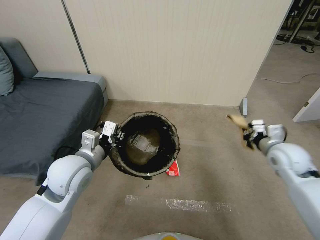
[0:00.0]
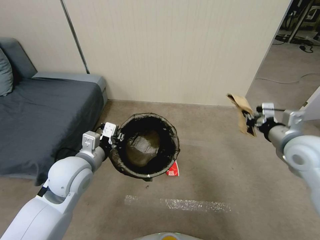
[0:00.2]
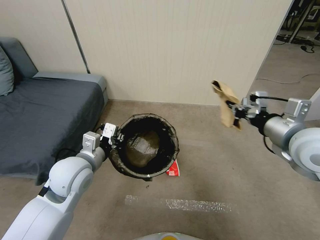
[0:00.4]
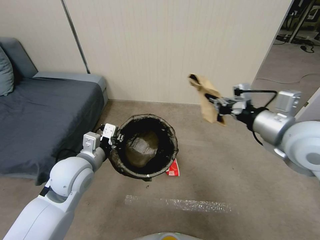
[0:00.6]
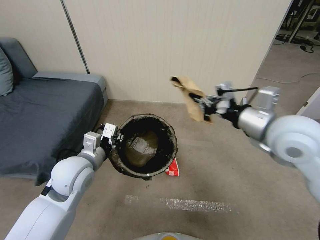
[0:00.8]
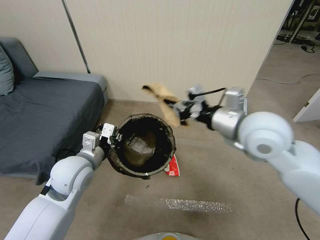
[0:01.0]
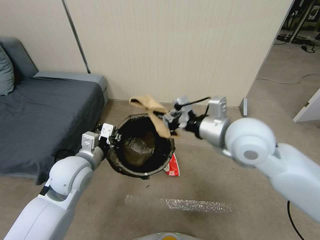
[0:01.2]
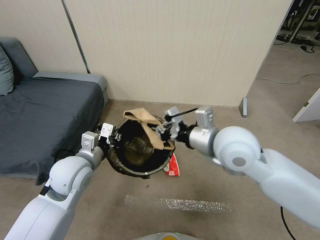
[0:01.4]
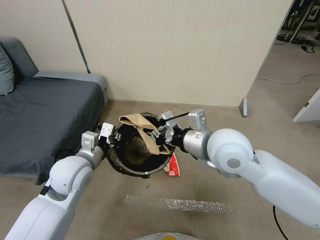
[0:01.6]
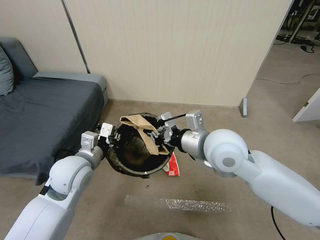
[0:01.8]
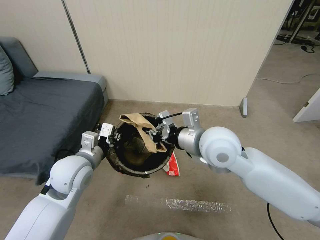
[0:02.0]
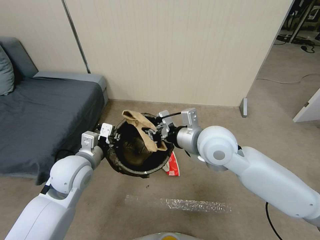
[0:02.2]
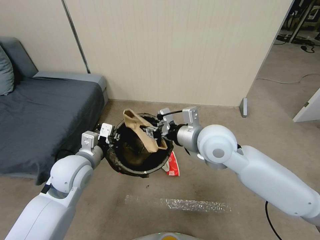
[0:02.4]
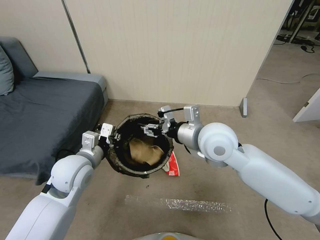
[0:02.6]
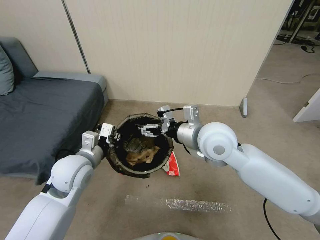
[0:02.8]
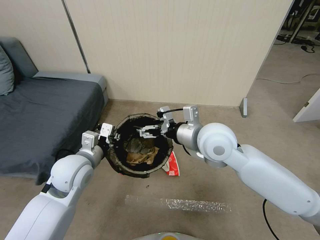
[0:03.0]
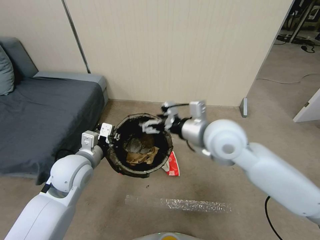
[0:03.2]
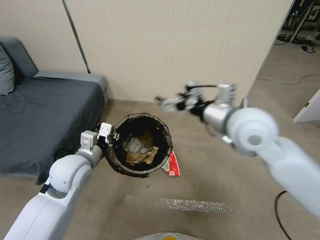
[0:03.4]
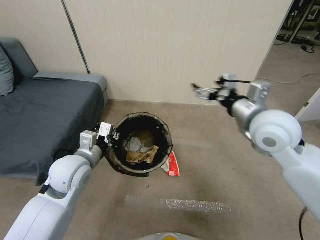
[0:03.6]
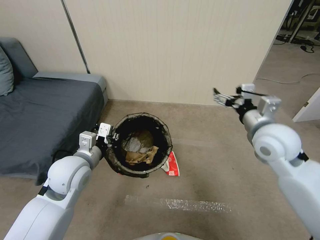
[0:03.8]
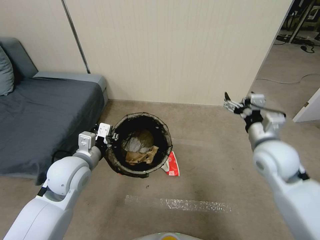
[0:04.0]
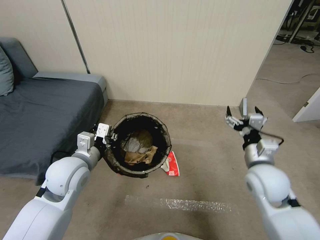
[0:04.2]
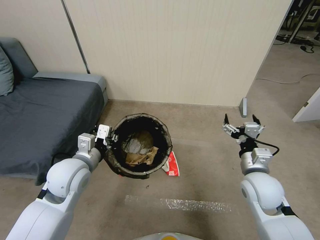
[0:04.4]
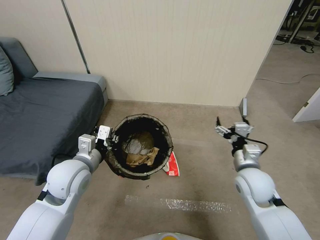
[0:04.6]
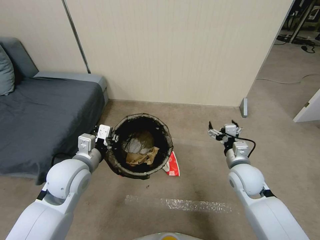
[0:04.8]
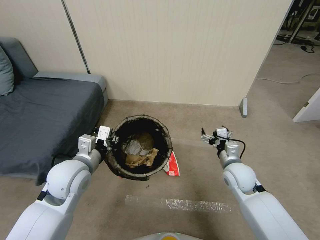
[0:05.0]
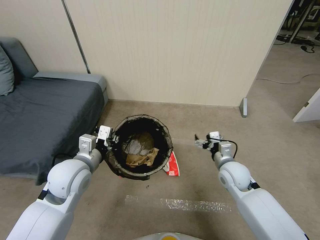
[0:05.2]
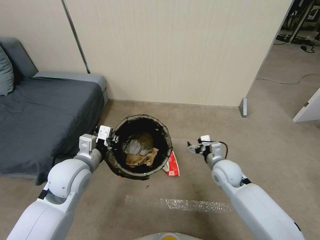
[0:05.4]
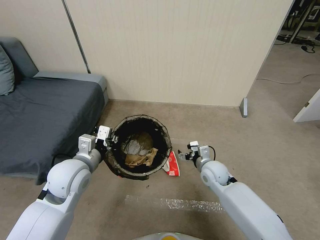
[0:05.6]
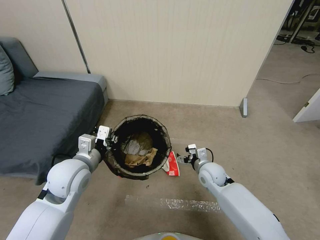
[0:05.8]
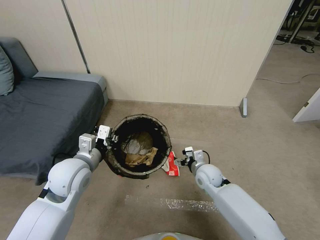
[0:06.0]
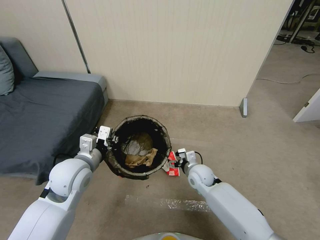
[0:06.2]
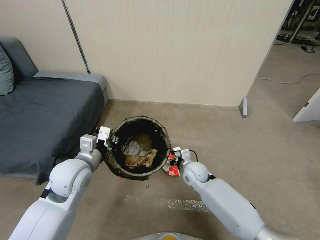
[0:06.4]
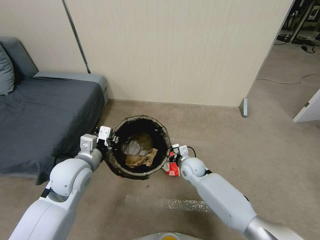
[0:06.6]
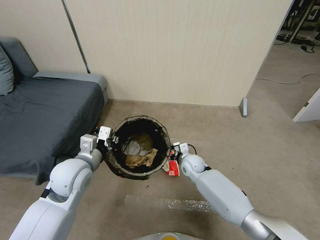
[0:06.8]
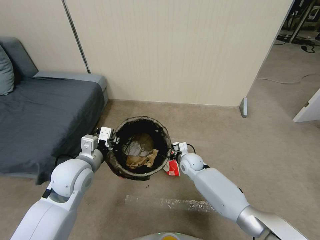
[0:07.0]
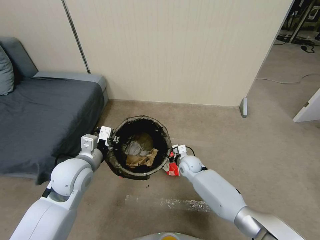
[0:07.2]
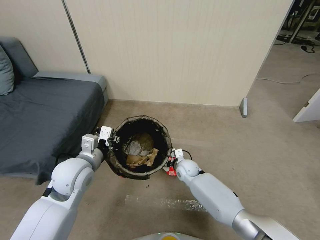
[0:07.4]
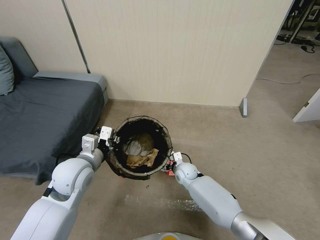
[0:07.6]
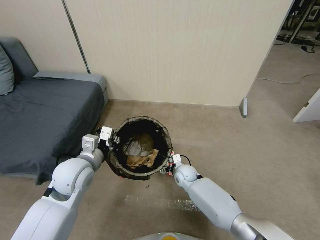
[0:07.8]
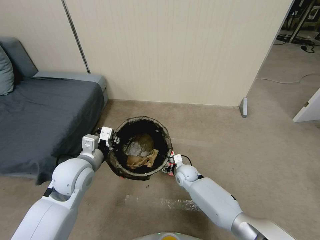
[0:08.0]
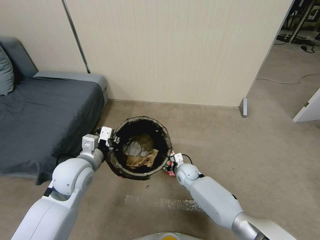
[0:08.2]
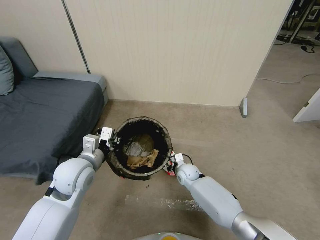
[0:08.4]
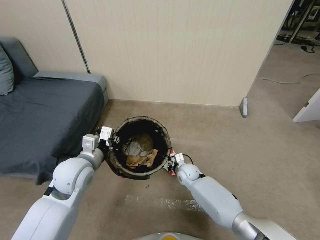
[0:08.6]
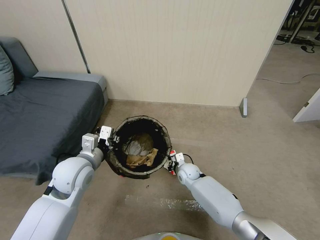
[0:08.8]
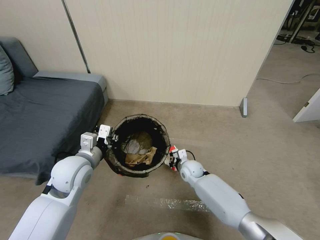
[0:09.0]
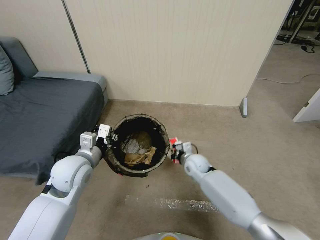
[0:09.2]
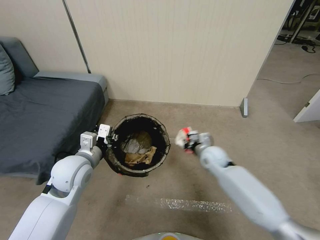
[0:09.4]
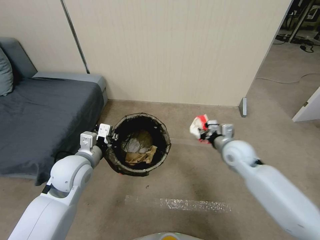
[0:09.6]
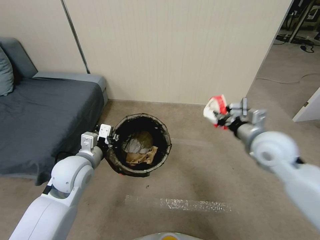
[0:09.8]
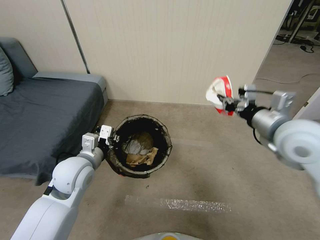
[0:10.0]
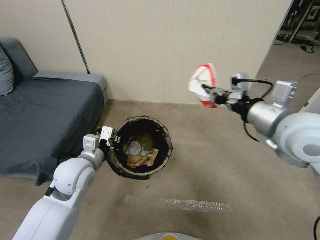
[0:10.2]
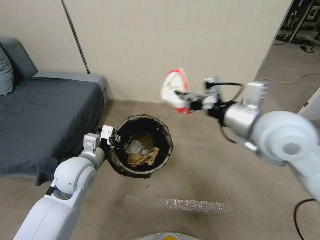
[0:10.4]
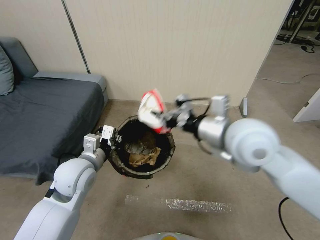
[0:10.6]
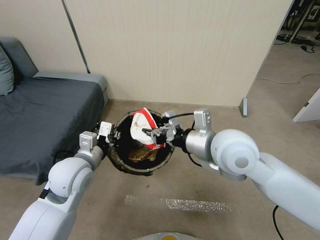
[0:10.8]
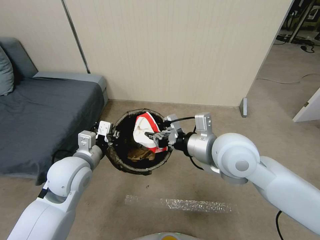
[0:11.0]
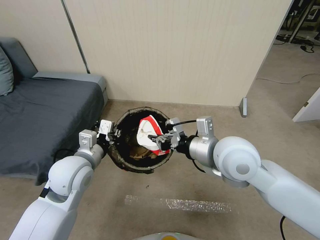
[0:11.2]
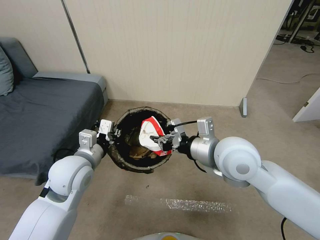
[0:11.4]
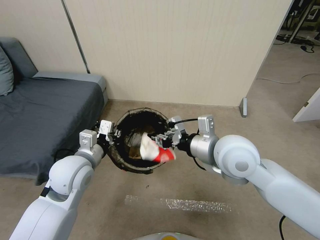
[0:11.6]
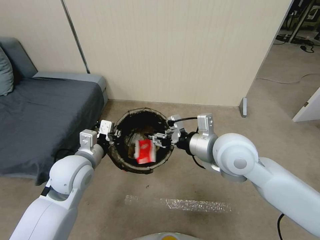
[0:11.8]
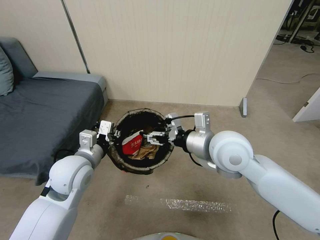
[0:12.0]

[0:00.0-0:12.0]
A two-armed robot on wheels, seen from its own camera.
Task of the whole recording: Pick up the trash bin, then pick up the garbage from the floor and place it into the trash bin.
0:00.0 to 0:01.6: The right gripper moves to the left and upward, about 25 cm.
0:01.6 to 0:03.0: The right gripper opens its fingers.
0:03.0 to 0:04.4: The right gripper is displaced to the right, downward and backward by roughly 20 cm.
0:04.4 to 0:06.0: The right gripper is displaced downward, to the left and forward by roughly 20 cm.
0:06.0 to 0:07.6: The right gripper moves downward and to the left, some 10 cm.
0:07.6 to 0:09.0: The right gripper closes its fingers.
0:09.0 to 0:10.4: The right gripper moves upward, about 40 cm.
0:10.4 to 0:12.0: The right gripper goes about 10 cm downward and to the left, and opens its fingers.

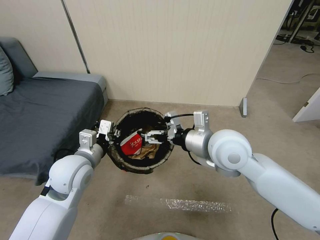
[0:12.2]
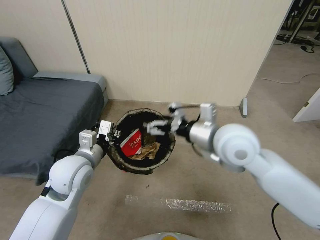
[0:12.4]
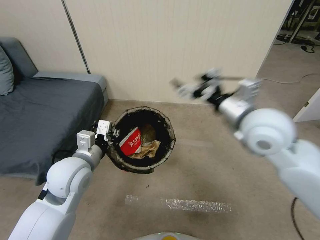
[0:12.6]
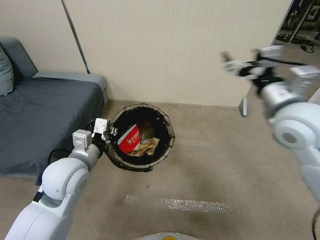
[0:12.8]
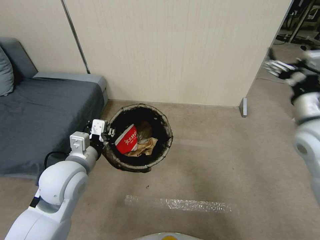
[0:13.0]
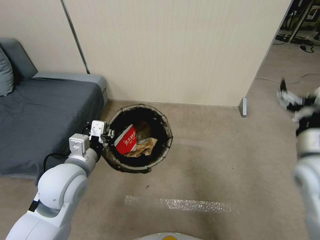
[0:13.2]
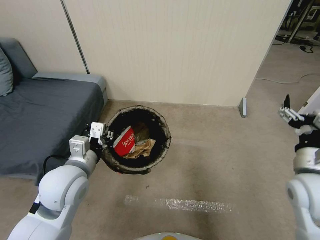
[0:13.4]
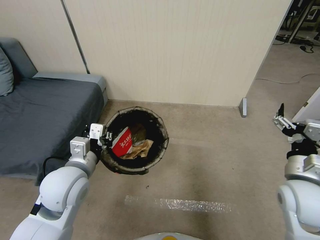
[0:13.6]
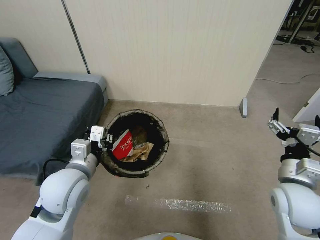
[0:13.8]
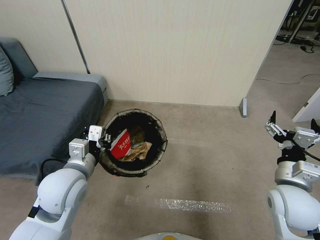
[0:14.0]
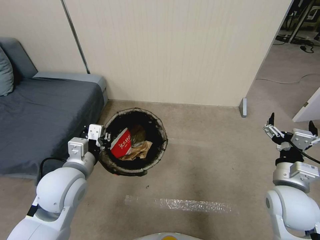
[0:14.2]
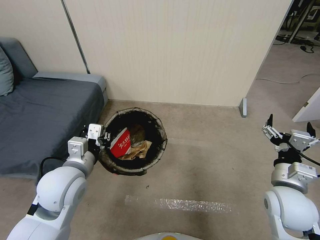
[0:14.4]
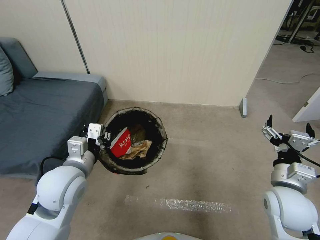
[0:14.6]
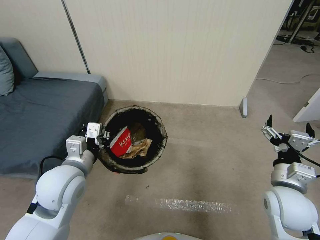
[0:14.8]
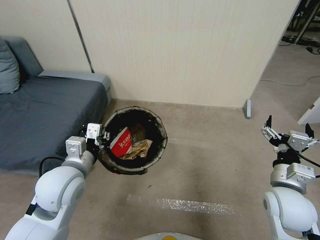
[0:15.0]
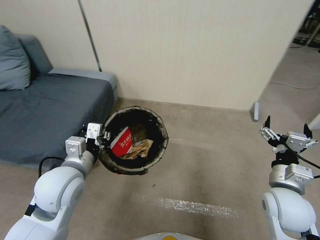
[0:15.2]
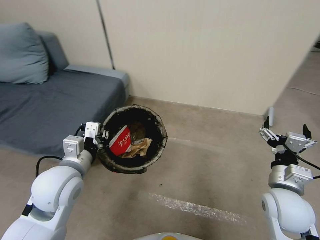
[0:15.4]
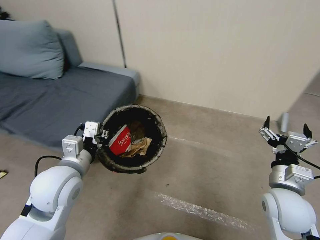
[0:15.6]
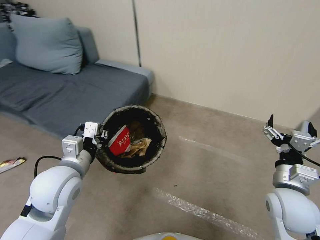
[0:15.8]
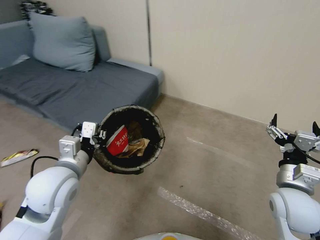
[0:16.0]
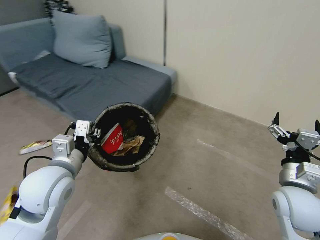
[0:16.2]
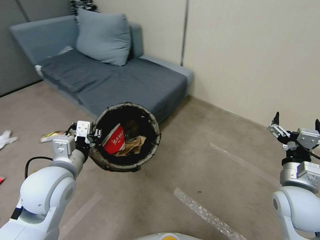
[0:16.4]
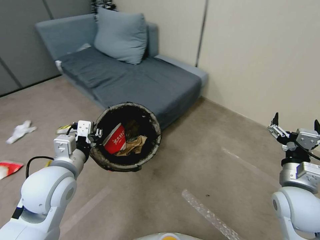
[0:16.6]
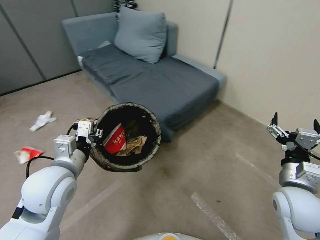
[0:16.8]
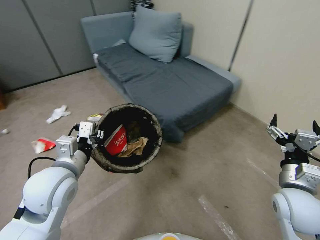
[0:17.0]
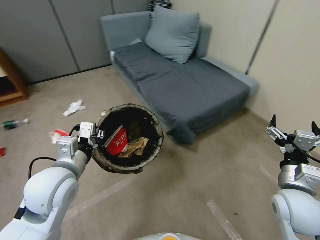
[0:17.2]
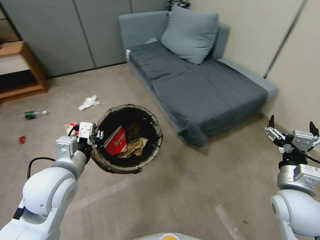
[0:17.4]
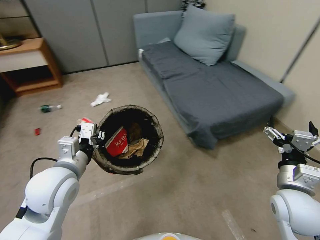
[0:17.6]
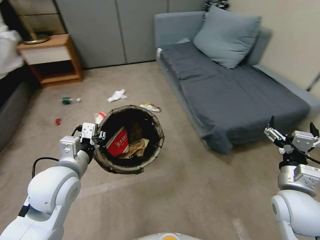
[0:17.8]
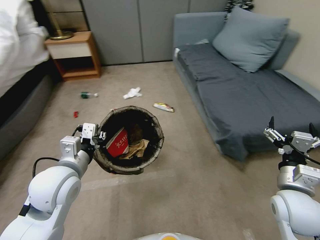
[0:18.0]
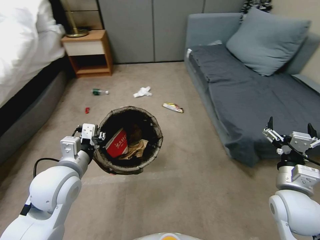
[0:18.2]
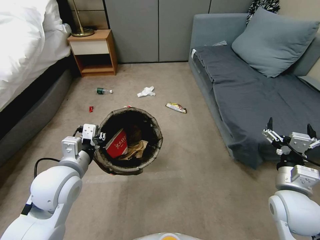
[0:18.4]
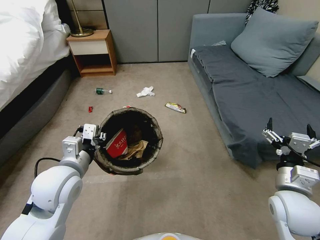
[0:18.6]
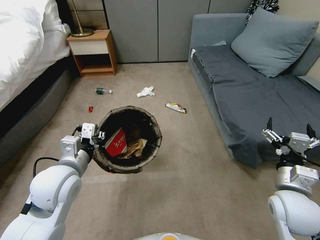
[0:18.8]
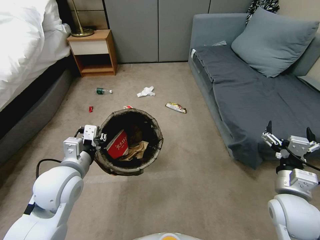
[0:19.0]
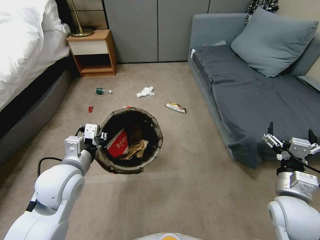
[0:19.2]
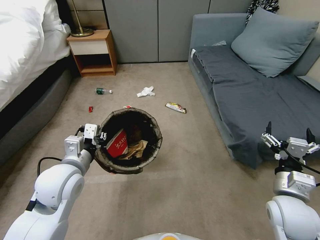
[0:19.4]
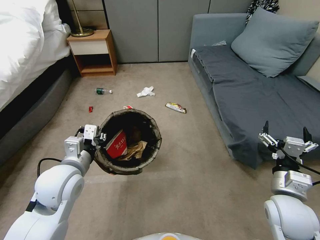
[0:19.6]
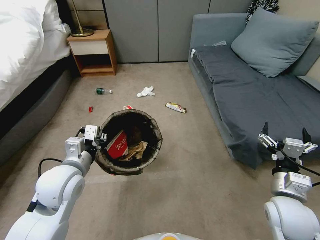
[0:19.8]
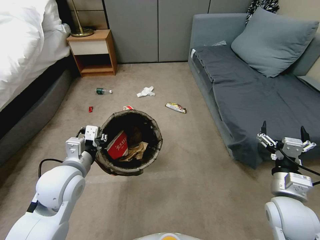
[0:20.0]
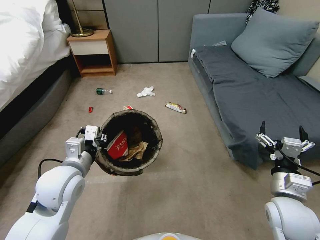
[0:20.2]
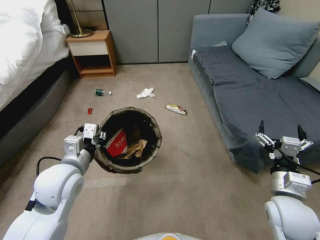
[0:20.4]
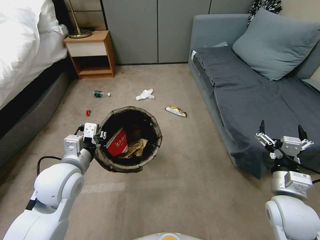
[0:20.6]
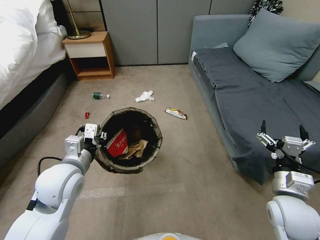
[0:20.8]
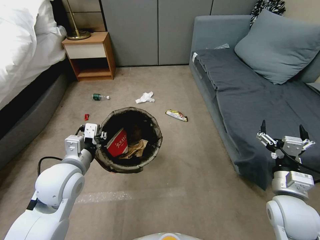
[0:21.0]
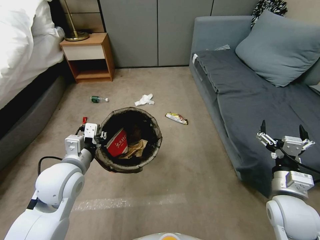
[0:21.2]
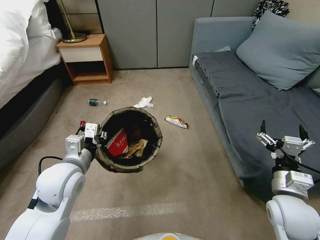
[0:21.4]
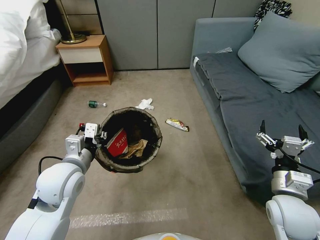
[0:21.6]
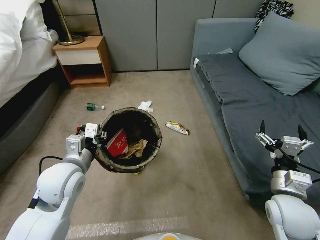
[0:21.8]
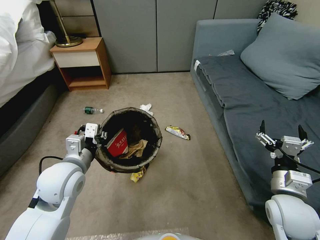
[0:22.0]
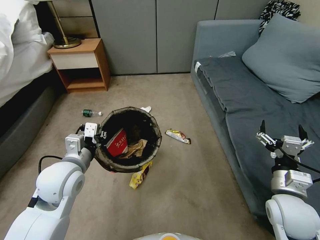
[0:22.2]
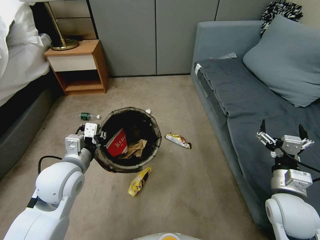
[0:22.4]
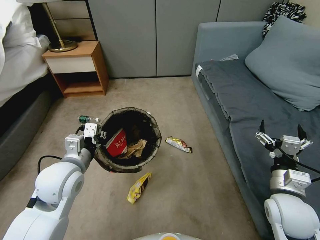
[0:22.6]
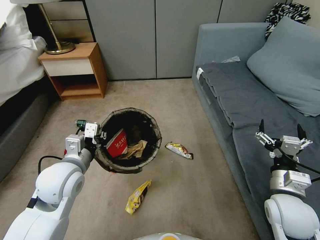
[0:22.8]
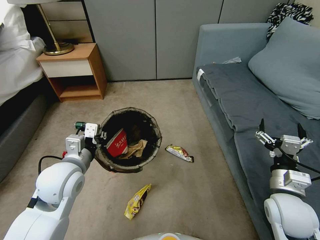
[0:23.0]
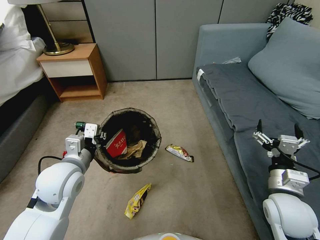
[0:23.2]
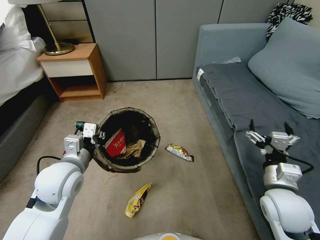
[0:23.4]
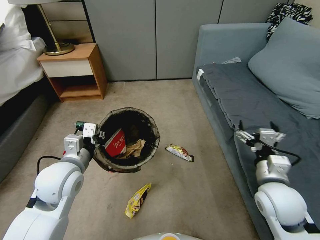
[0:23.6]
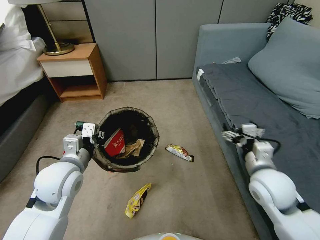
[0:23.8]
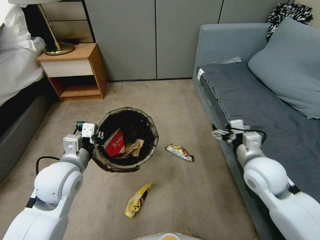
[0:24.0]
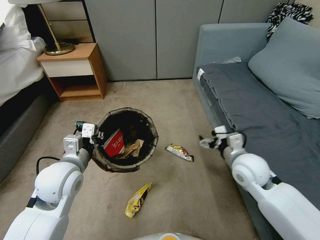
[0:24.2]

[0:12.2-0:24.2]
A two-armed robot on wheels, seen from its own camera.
Task of the whole recording: Pick up the trash bin, then pick up the garbage from the floor and place it into the trash bin.
0:12.2 to 0:13.8: The right gripper travels to the right, downward and backward by roughly 20 cm.
0:18.2 to 0:19.8: The grippers move only a little.
0:22.6 to 0:24.2: The right gripper is displaced forward and to the left by about 10 cm.
